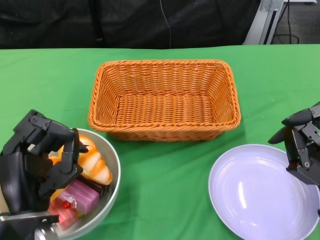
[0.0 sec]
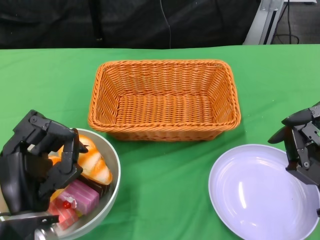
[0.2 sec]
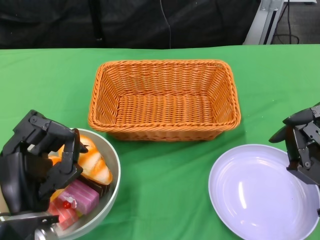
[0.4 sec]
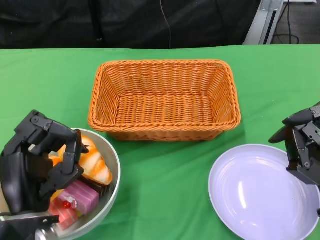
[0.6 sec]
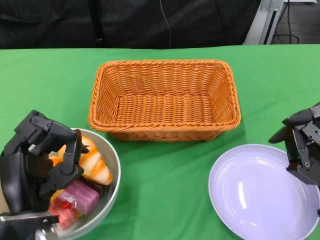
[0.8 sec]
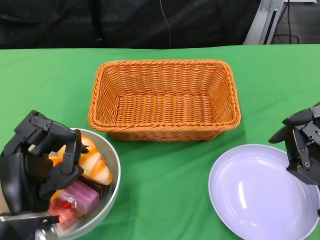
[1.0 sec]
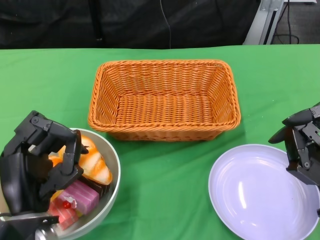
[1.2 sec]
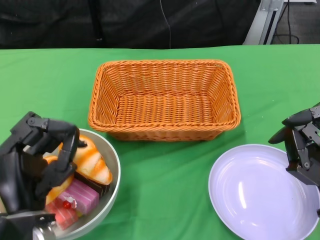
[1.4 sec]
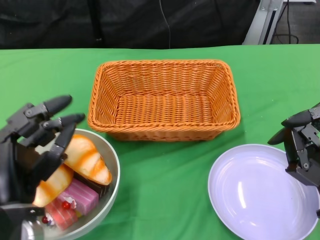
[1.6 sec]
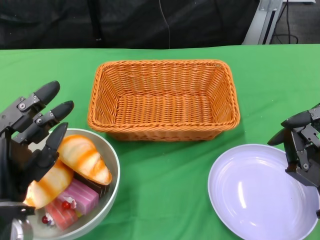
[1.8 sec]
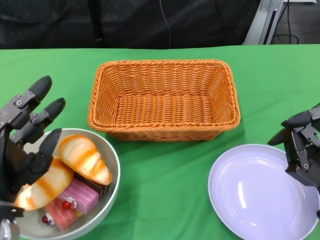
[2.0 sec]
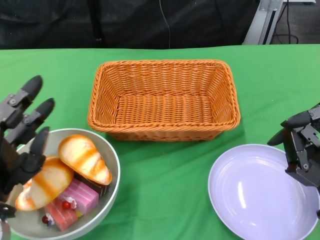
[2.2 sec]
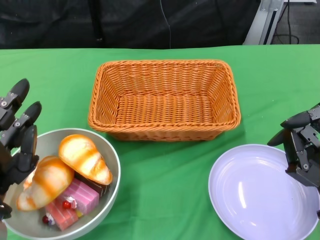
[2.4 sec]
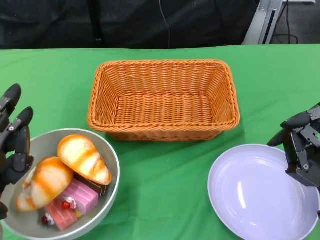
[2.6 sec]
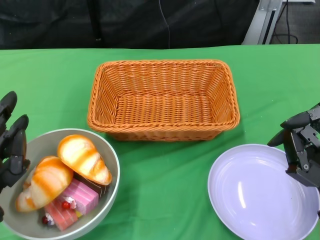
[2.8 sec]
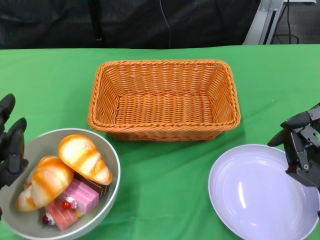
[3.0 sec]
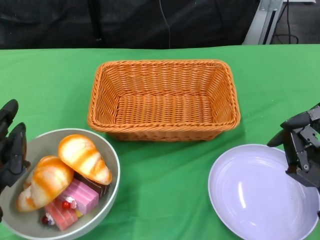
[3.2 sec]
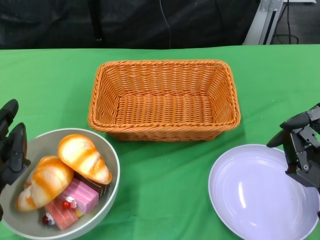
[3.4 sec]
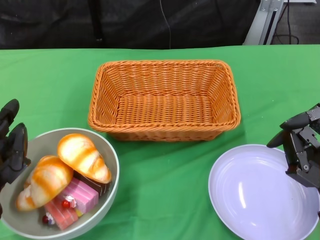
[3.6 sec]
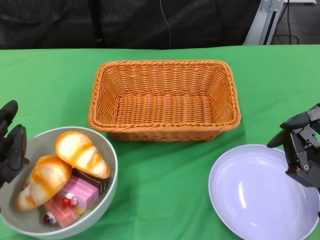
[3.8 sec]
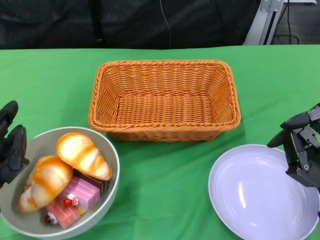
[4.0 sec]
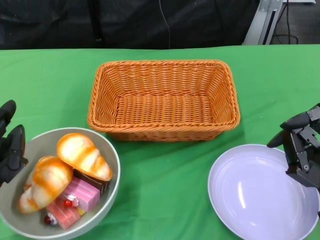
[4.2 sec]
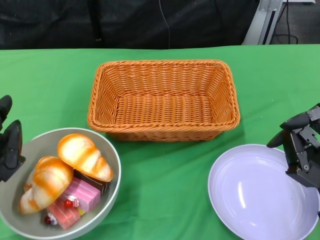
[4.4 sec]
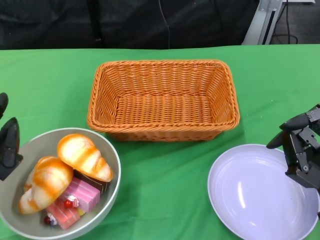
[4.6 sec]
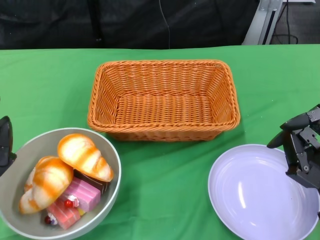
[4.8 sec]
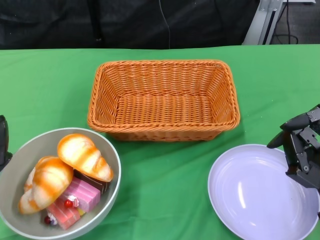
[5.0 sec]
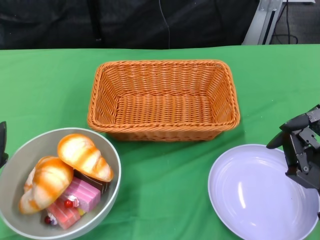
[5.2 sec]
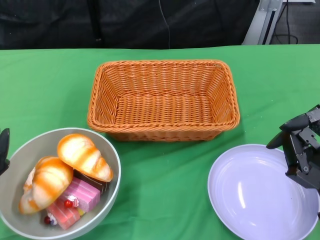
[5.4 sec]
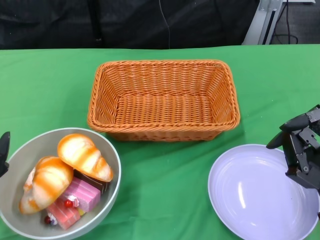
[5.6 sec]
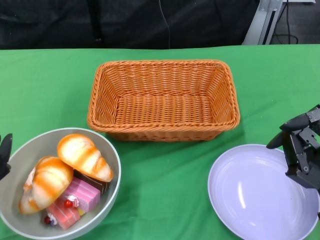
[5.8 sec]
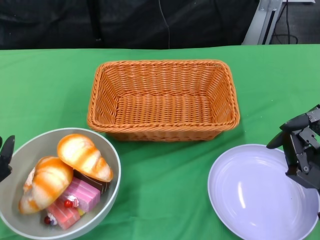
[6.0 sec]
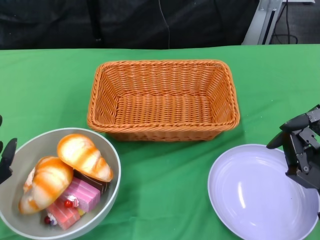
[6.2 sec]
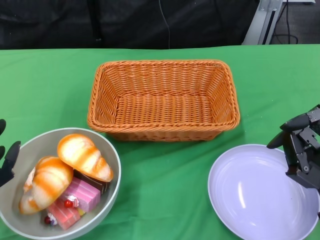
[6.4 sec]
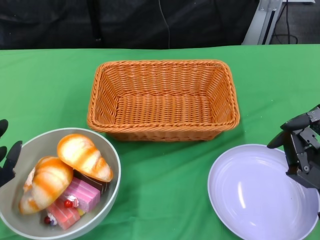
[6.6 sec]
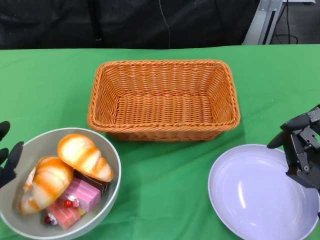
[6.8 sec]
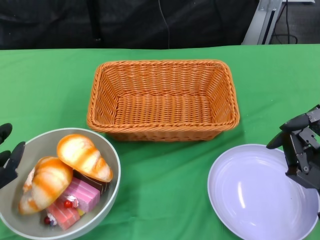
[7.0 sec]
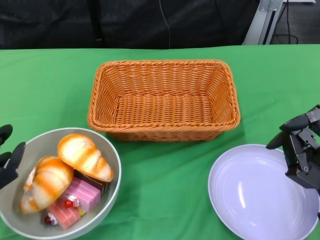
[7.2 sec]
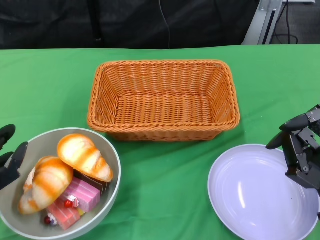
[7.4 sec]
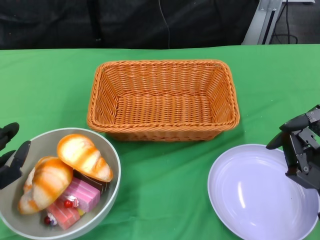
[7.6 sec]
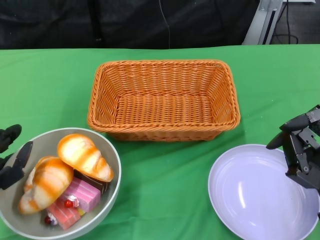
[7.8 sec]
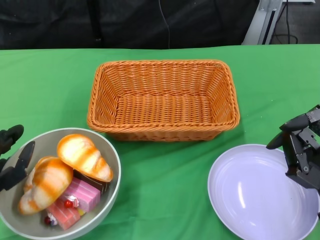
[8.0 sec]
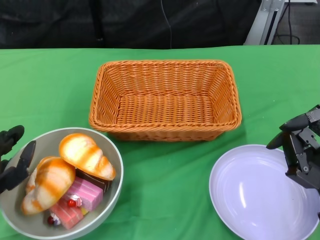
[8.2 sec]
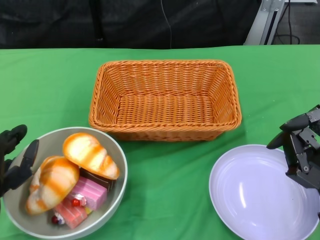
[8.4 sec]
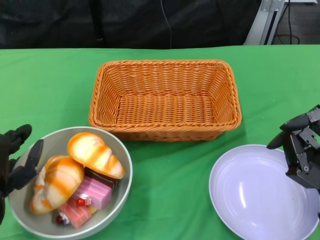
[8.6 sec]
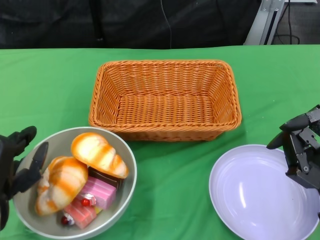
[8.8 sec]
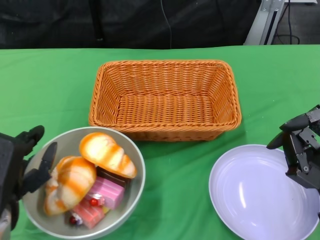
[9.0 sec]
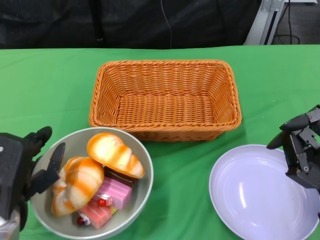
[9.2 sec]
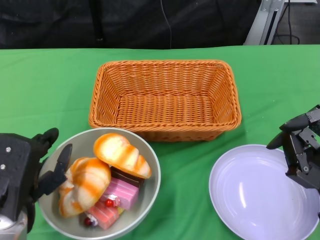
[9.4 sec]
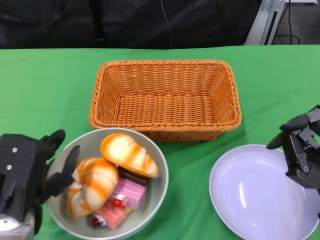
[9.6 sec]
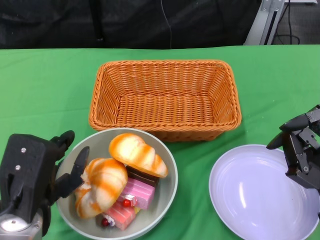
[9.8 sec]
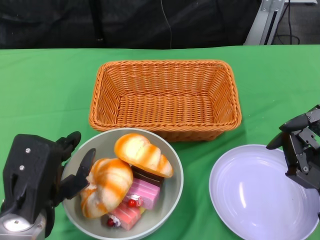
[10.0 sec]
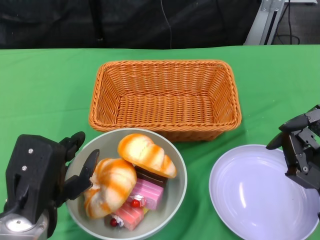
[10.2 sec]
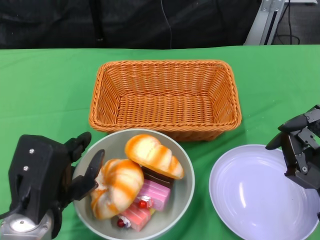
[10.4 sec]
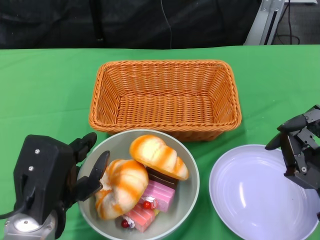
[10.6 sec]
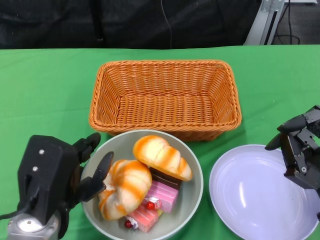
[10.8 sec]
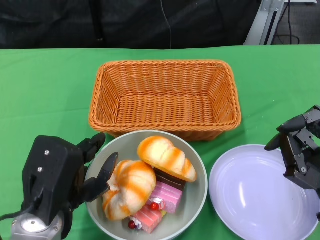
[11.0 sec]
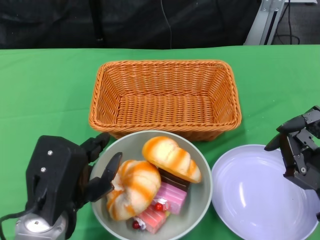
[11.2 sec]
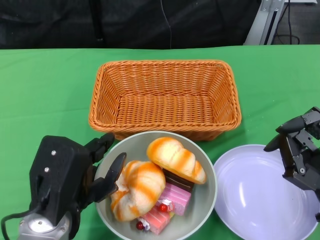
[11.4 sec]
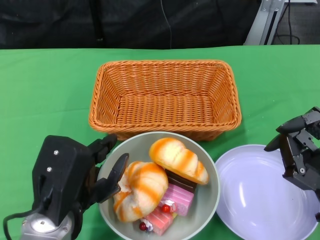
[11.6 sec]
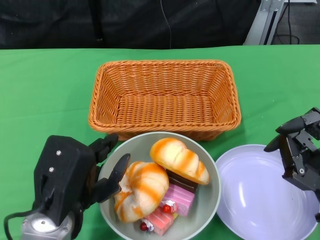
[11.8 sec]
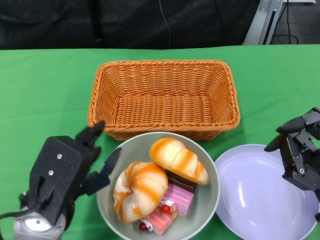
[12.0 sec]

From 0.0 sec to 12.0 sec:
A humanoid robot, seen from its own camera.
From 1.6 sec to 3.0 sec: The left hand heads to the left, covering some 5 cm.
From 3.0 sec to 6.0 sec: The hands make only small movements.
From 6.0 sec to 7.6 sec: The hands move only a little.
From 9.0 sec to 10.4 sec: The left hand shifts approximately 5 cm to the right.

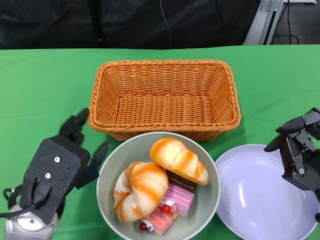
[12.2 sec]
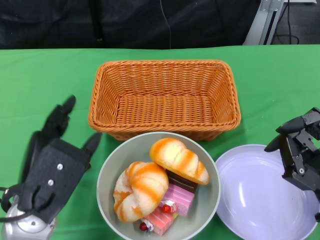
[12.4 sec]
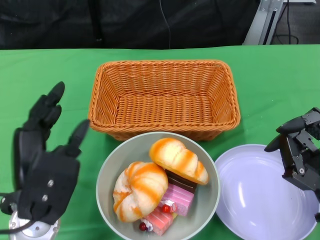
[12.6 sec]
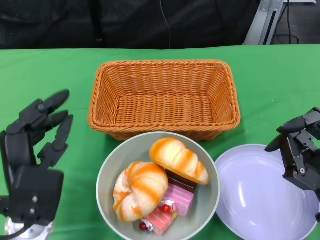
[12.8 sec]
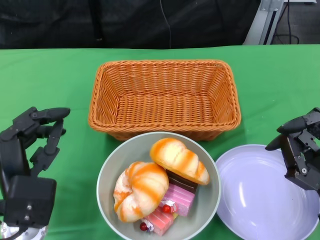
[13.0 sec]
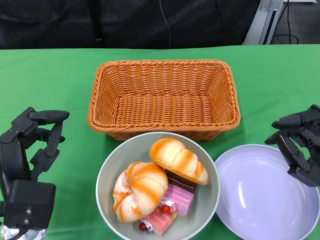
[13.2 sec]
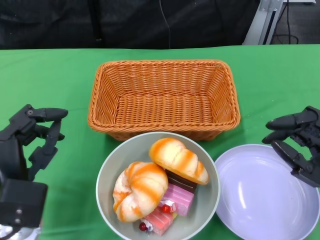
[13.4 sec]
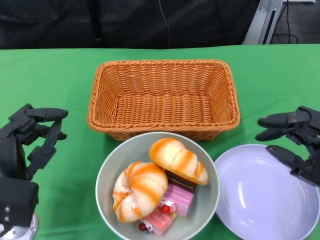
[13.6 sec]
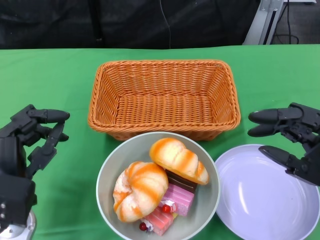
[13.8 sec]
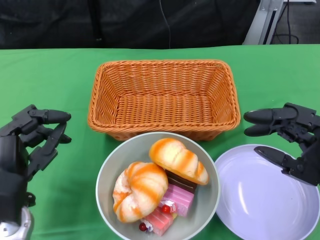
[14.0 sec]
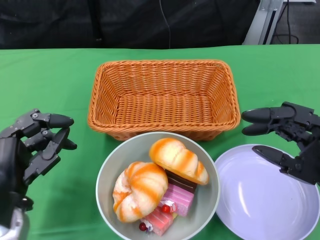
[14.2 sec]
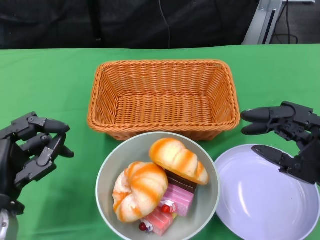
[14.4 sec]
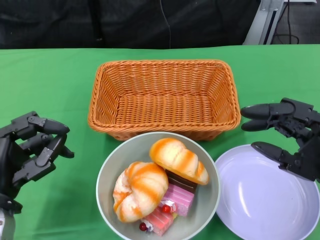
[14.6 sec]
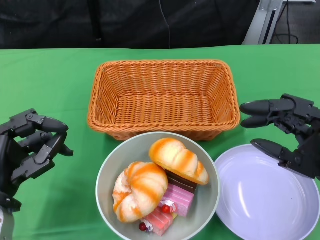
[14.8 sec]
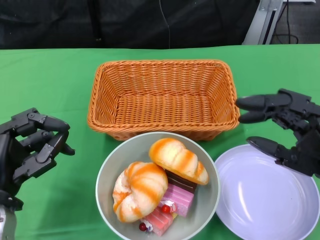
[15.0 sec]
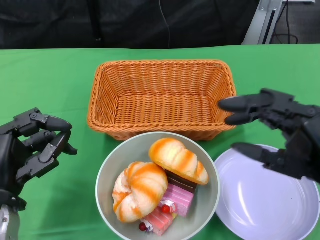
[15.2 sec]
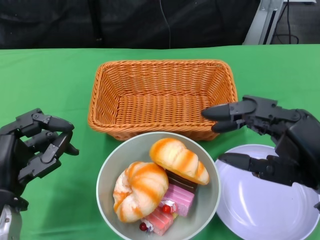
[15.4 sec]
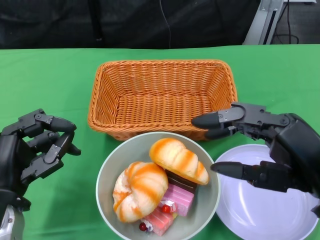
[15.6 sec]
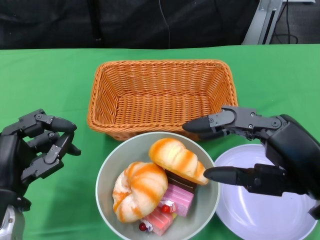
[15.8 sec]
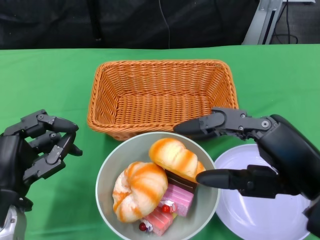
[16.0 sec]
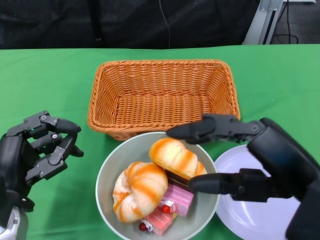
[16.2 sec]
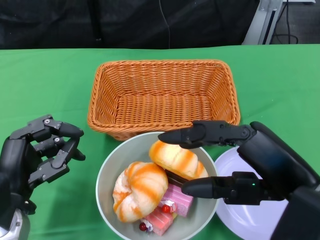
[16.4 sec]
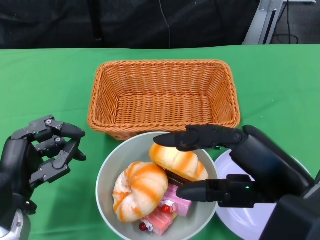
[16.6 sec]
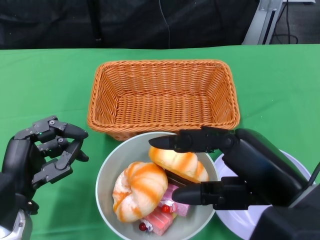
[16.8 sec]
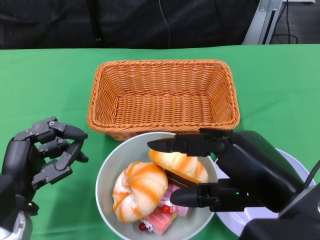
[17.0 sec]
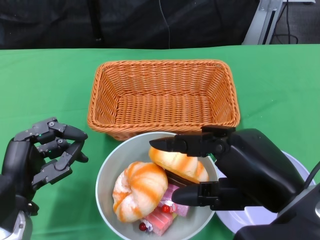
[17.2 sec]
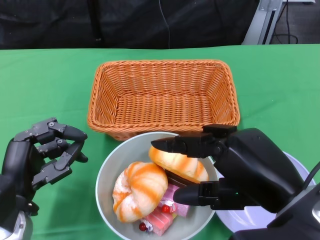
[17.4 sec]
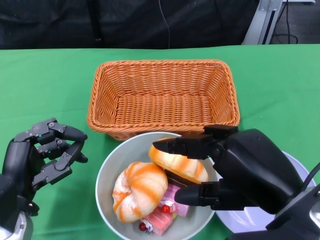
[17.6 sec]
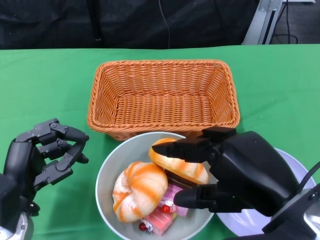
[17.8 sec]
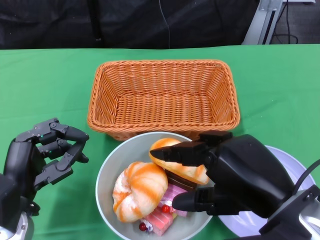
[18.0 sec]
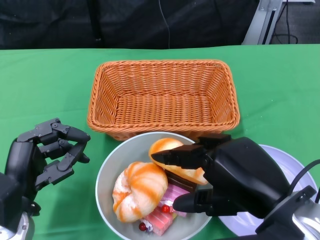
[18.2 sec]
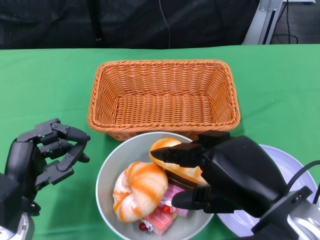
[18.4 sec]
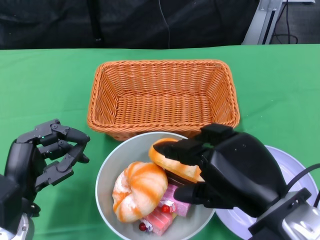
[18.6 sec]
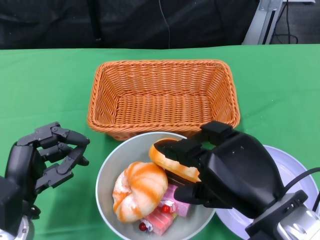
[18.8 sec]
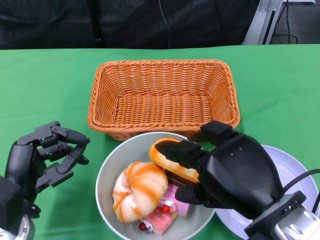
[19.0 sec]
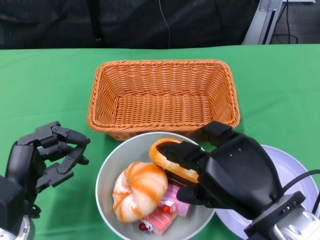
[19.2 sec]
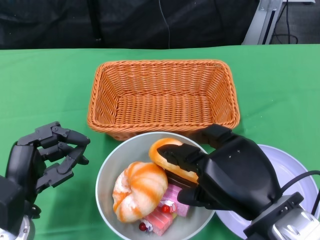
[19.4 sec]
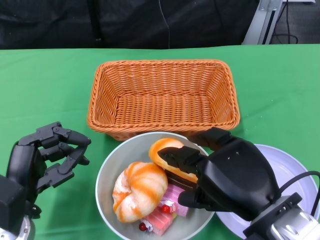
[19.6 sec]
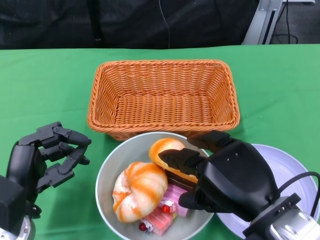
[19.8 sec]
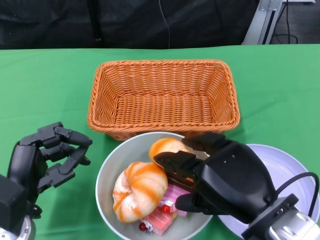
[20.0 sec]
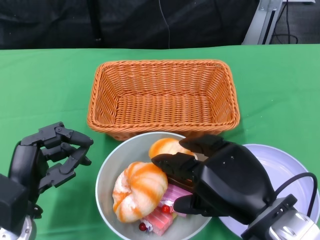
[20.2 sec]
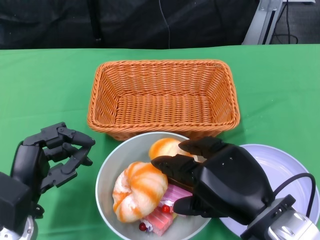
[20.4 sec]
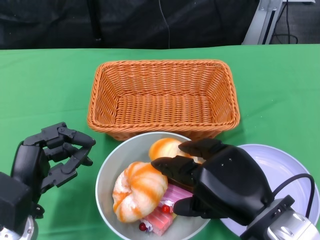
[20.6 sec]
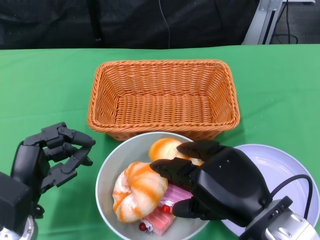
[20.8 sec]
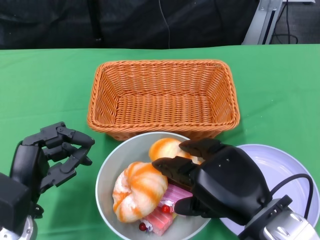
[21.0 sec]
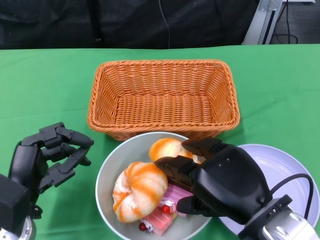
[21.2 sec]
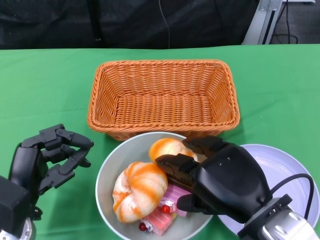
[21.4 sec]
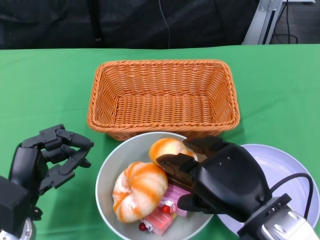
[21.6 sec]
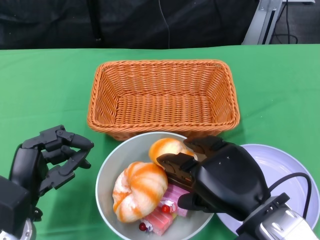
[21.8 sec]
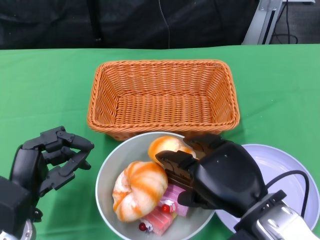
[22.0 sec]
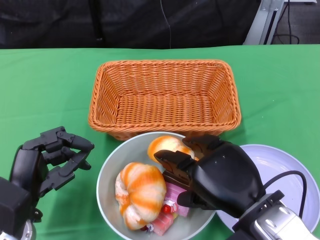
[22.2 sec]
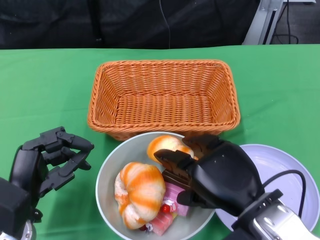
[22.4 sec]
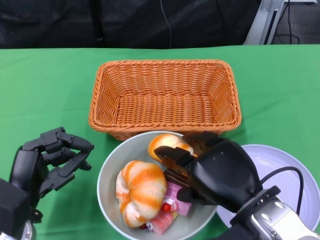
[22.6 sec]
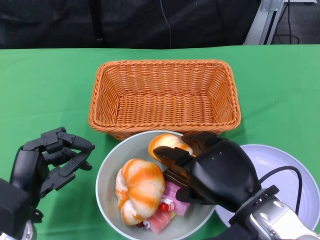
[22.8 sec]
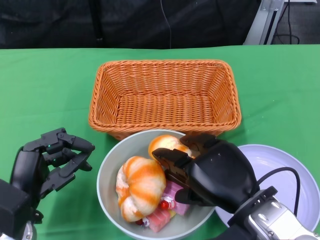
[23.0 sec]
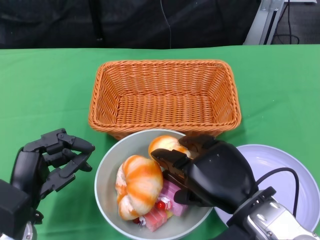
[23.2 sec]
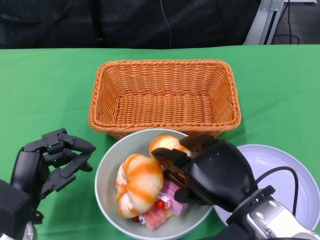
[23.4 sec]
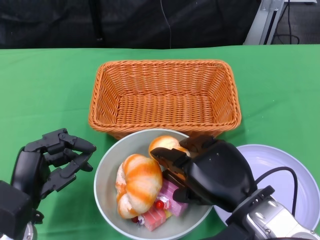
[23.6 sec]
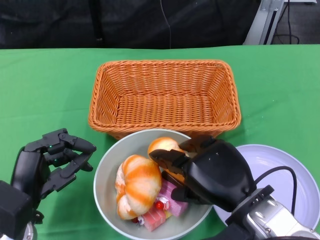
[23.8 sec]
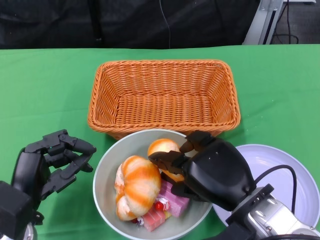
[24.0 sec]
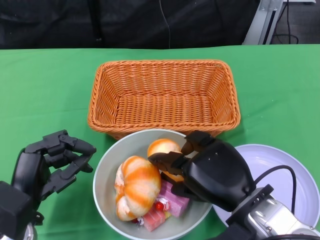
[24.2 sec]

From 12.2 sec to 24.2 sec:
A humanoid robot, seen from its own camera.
From 12.2 sec to 13.8 sec: The left hand travels downward by about 5 cm.
From 15.2 sec to 16.6 sec: The right hand heads to the left, covering some 5 cm.
From 18.2 sec to 19.8 sec: The hands move only a little.
From 19.8 sec to 21.2 sec: Both hands stay put.
From 21.2 sec to 24.2 sec: The hands move only a little.
